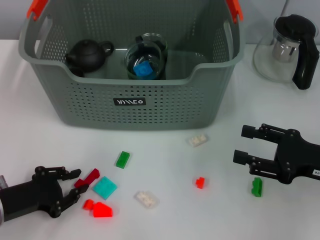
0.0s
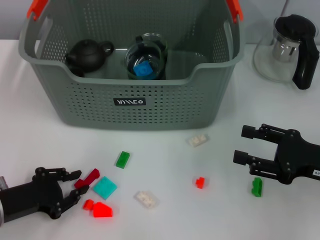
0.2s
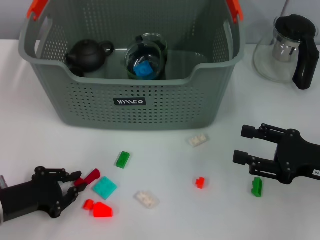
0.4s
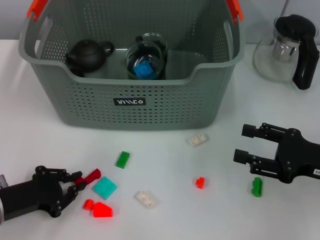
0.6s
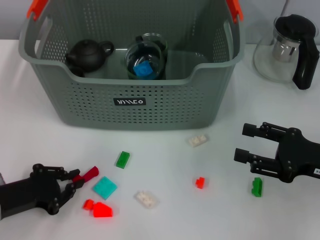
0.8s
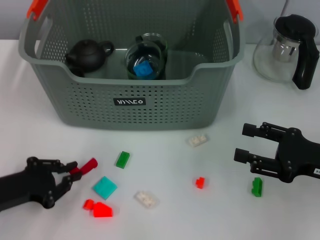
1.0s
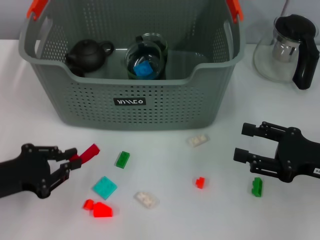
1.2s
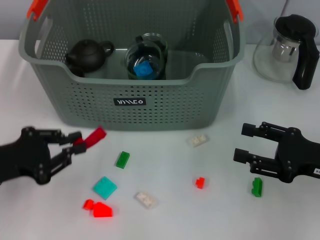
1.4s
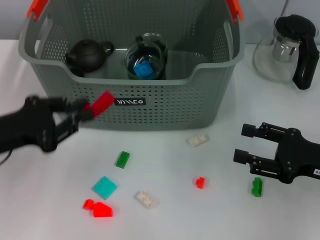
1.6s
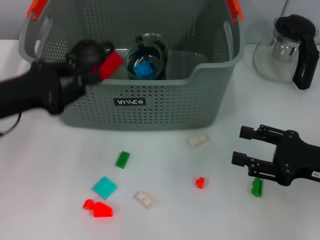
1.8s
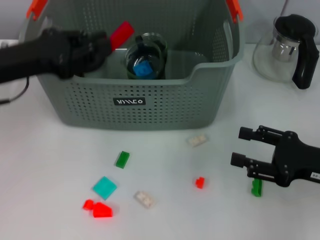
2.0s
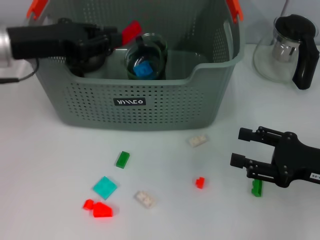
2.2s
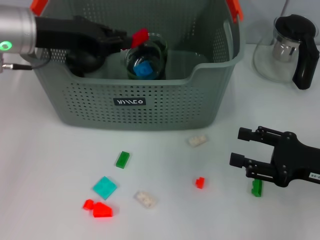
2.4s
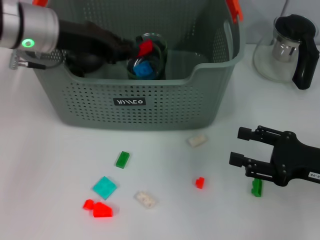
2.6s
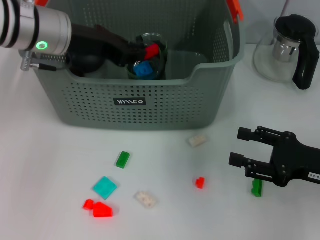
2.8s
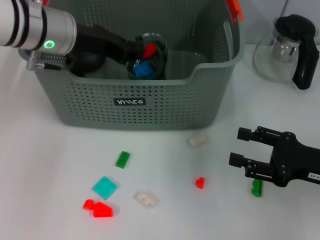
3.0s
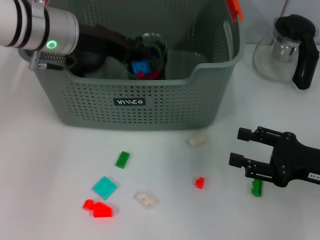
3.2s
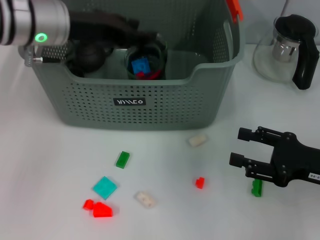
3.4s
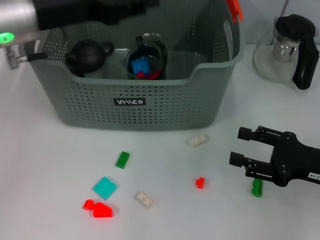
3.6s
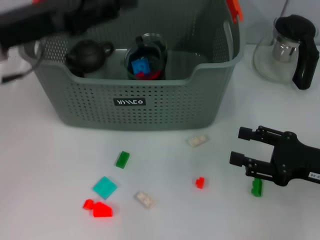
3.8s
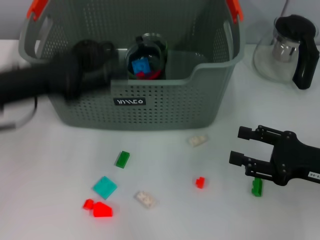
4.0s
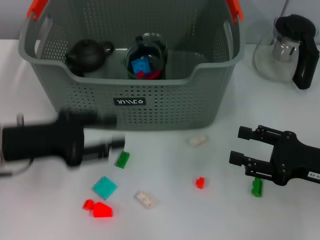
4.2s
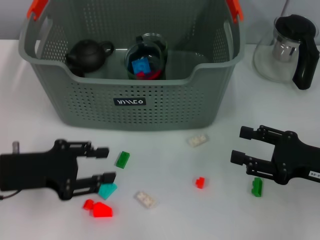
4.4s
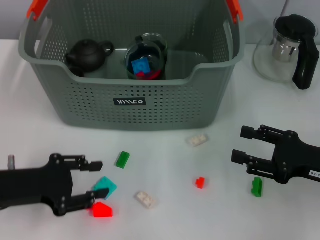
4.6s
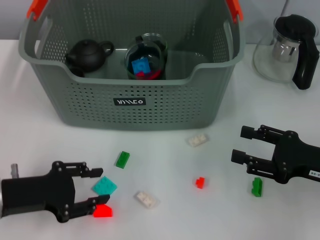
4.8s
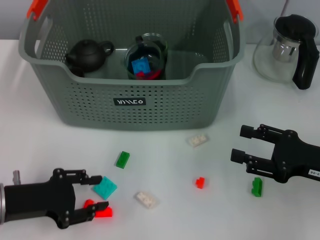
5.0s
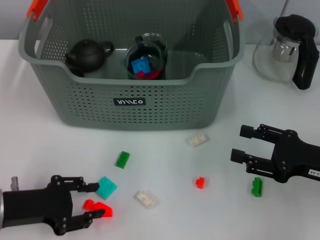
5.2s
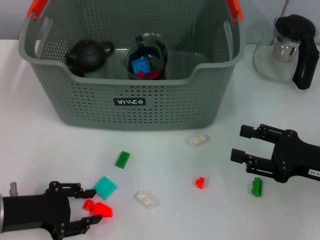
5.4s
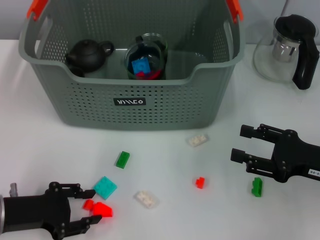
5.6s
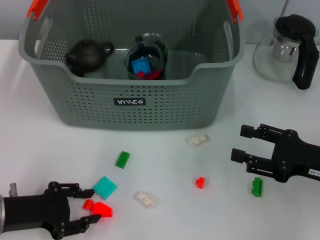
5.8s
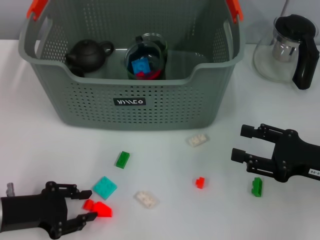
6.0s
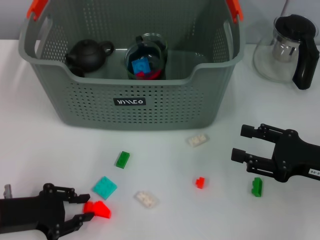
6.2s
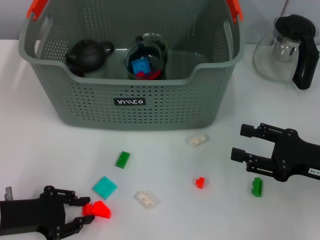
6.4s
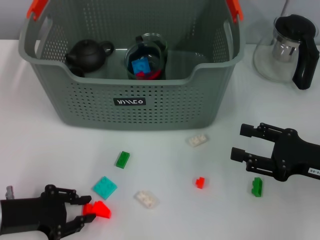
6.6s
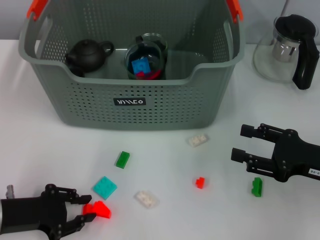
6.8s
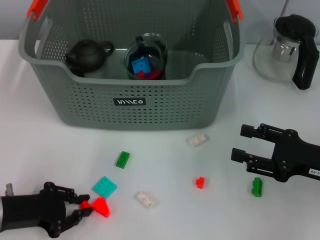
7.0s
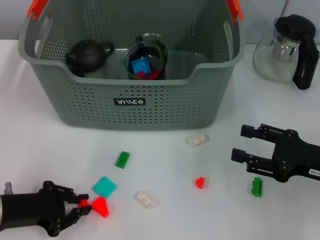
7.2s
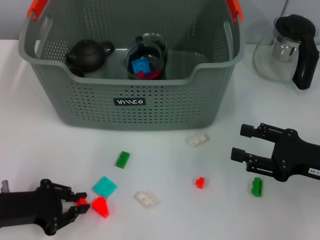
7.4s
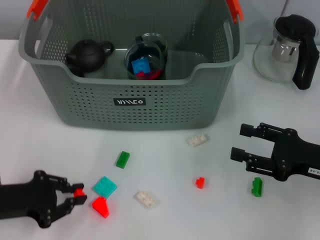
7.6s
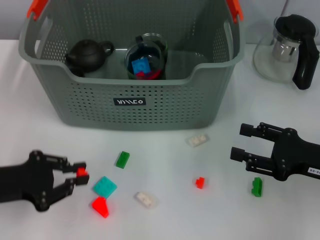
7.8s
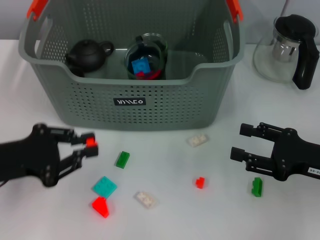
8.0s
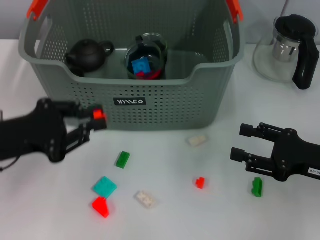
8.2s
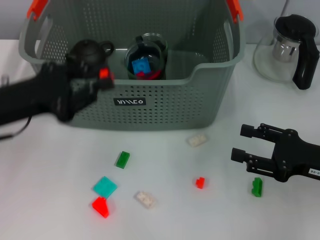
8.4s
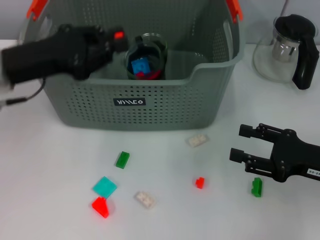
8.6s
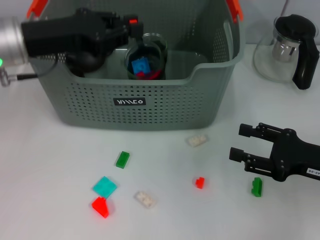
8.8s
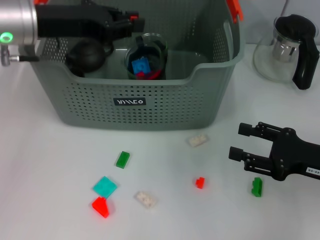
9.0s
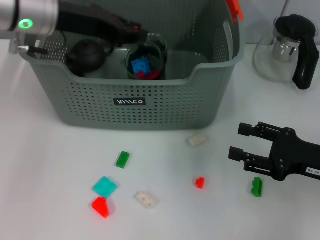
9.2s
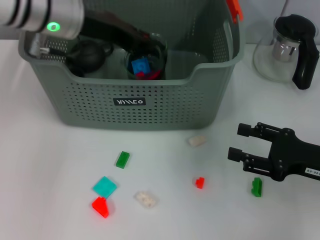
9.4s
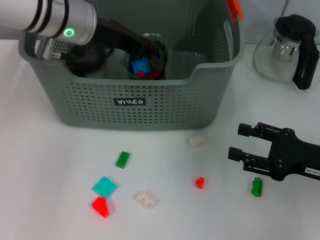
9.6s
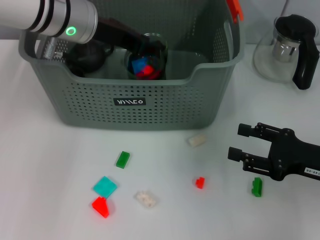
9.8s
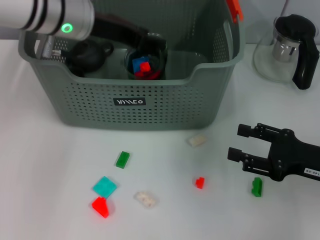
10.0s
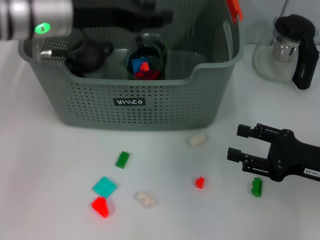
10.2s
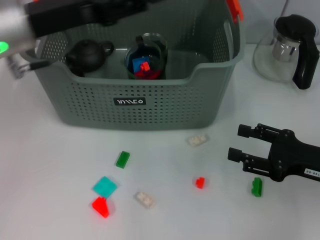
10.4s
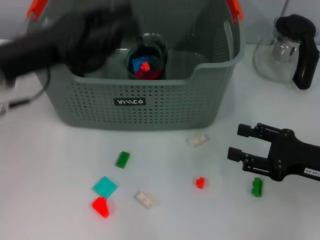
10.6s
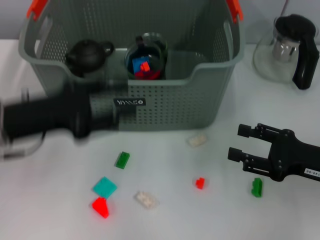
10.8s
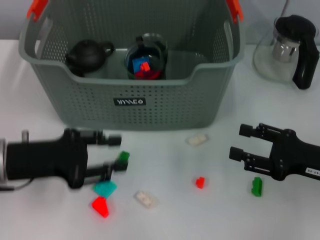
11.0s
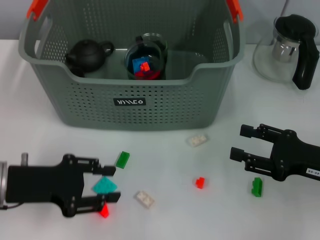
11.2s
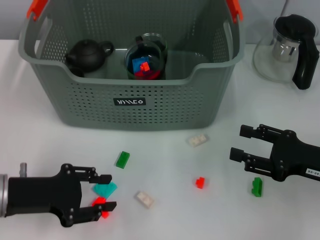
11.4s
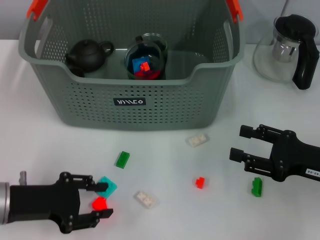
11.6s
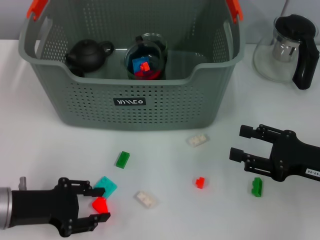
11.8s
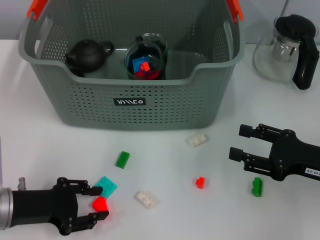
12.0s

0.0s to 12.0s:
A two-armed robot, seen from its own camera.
Task of the whole recording: pick up the teacup on the table and place it into the storage bin, pick up the block on the table and place it into the storage bin.
Step, 0.6s to 3.4s: Place the red block in the storage box with left gripper.
Step, 3.6s to 7.2s: Grasp the orange block with left gripper.
Step, 7.4s to 10.0s: Place the orange block in the storage box with left gripper.
0.0s to 1.6s: The left gripper heads upward, covering some 10 cm, and closes.
1.6s to 3.0s: The left gripper goes some 20 cm forward, to the right and upward.
3.0s to 4.4s: The left gripper is displaced backward, downward and to the left by some 20 cm, and opens.
4.4s to 6.0s: The left gripper goes approximately 5 cm downward.
6.0s to 7.6s: The left gripper closes up.
7.6s to 9.0s: The left gripper is displaced upward, forward and to the right by roughly 25 cm.
9.0s to 10.4s: The left gripper opens.
10.4s to 12.0s: The left gripper moves downward and backward, about 20 cm.

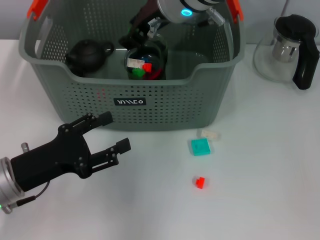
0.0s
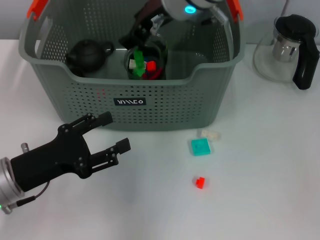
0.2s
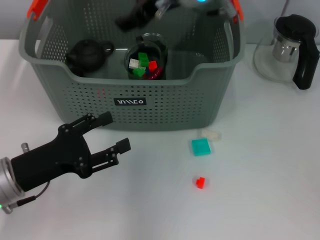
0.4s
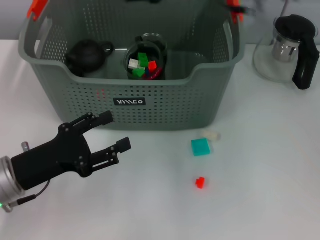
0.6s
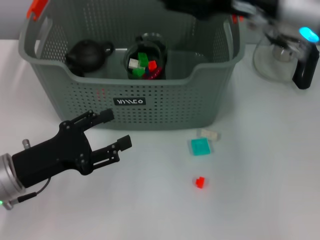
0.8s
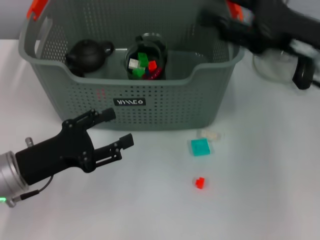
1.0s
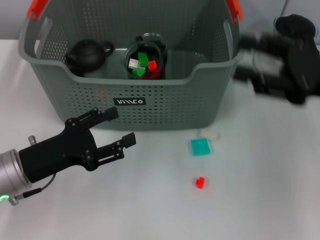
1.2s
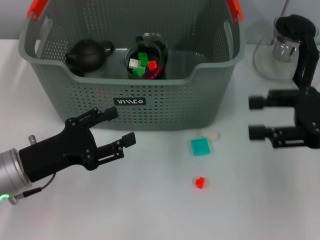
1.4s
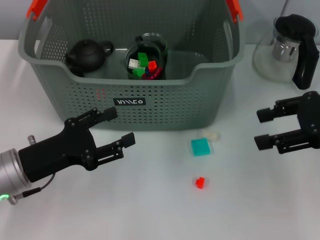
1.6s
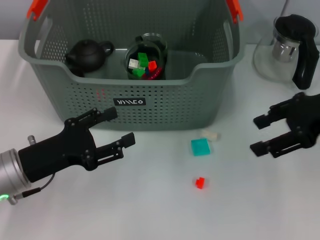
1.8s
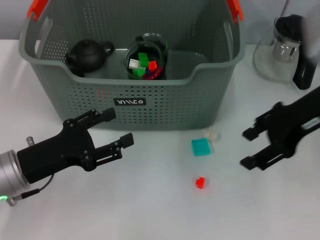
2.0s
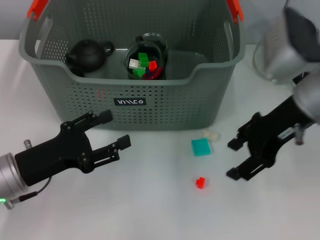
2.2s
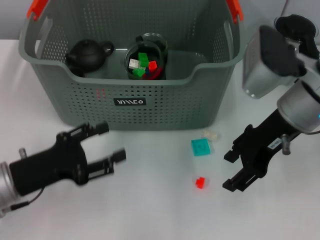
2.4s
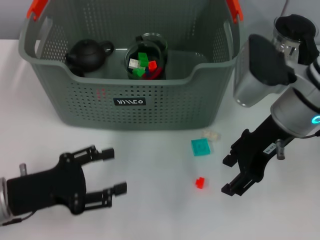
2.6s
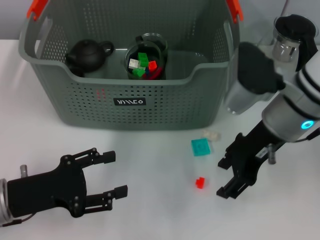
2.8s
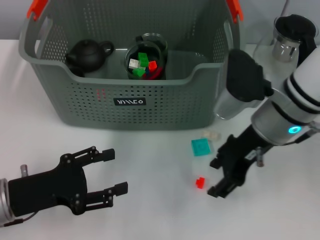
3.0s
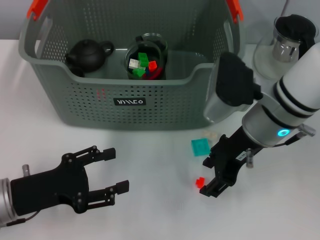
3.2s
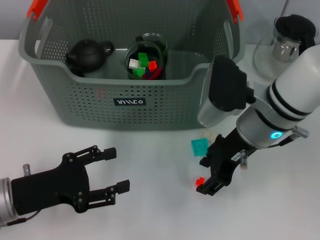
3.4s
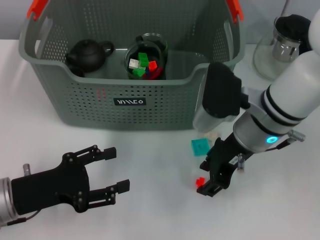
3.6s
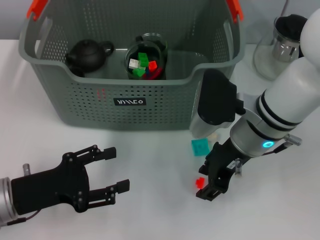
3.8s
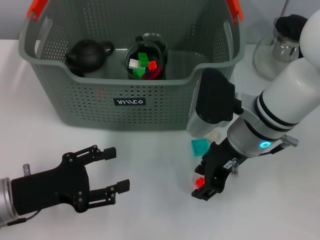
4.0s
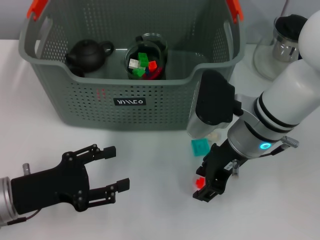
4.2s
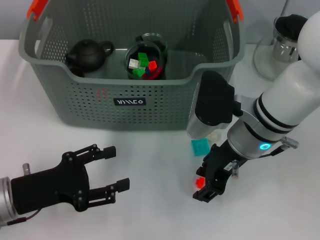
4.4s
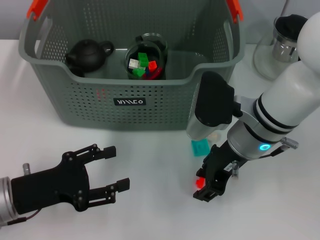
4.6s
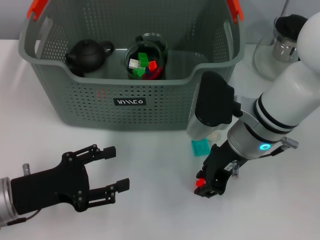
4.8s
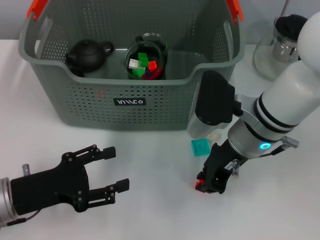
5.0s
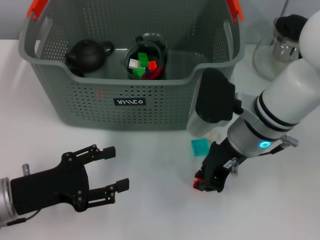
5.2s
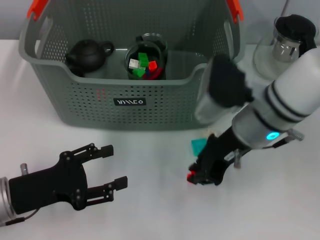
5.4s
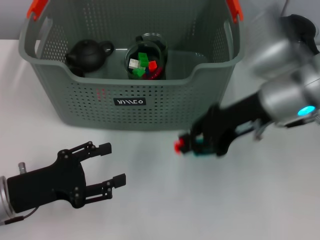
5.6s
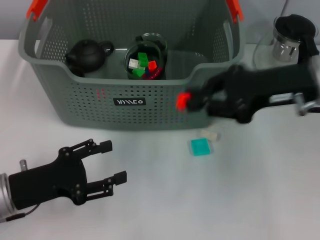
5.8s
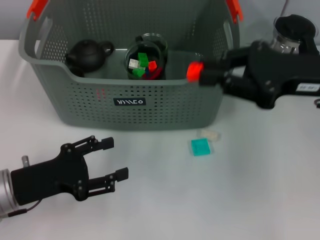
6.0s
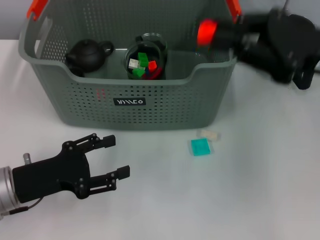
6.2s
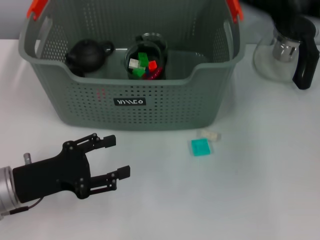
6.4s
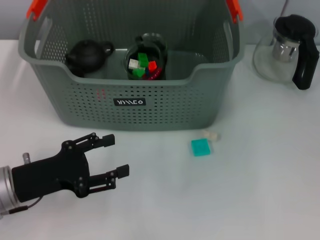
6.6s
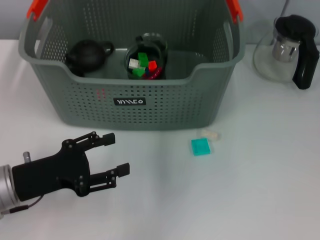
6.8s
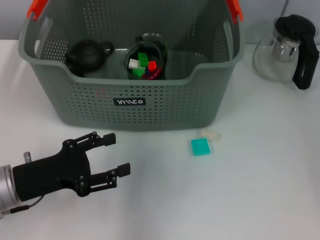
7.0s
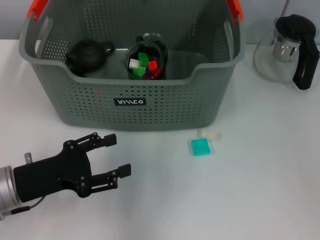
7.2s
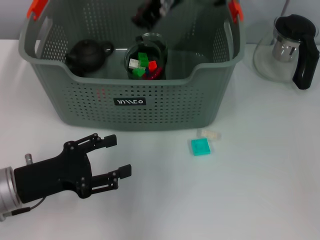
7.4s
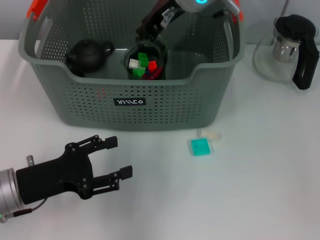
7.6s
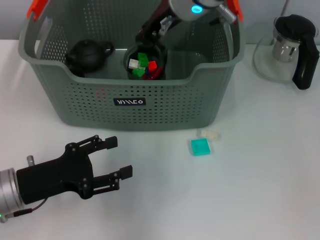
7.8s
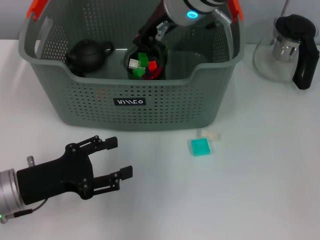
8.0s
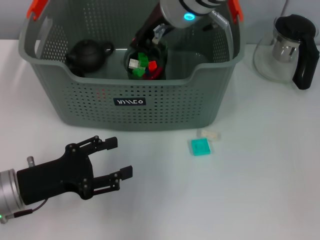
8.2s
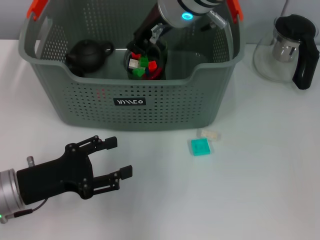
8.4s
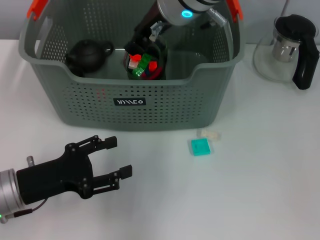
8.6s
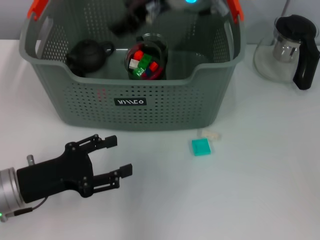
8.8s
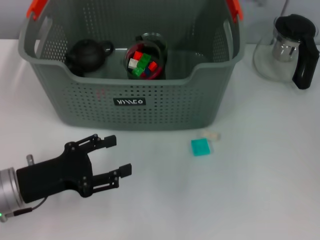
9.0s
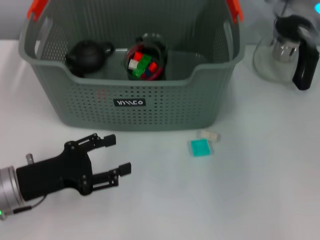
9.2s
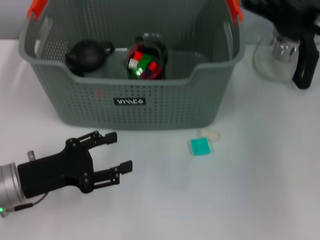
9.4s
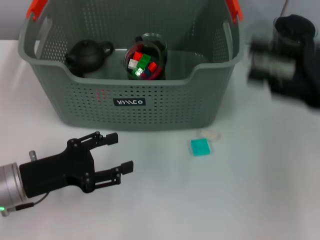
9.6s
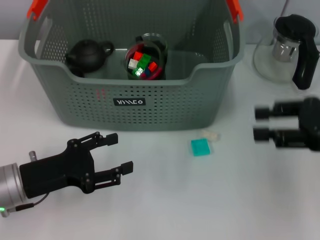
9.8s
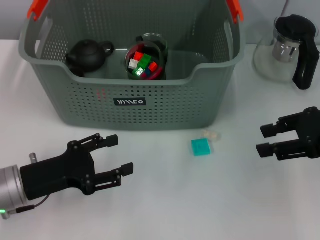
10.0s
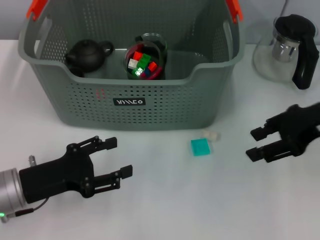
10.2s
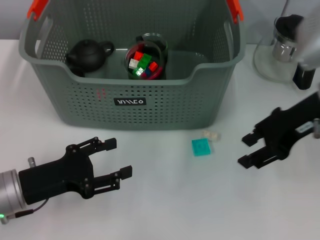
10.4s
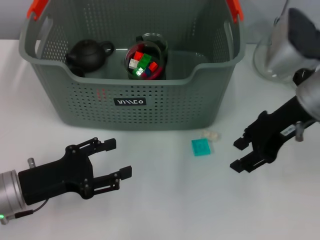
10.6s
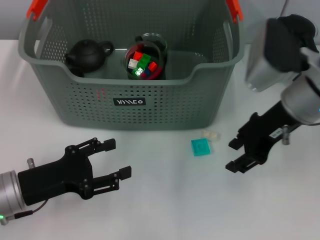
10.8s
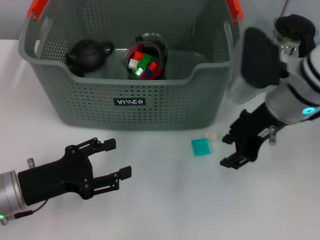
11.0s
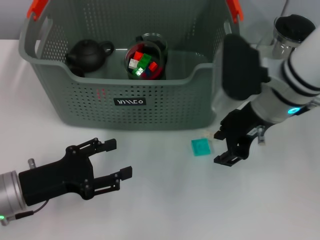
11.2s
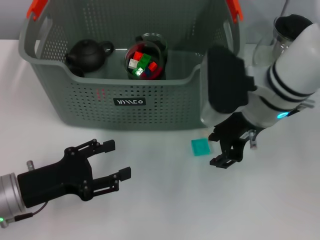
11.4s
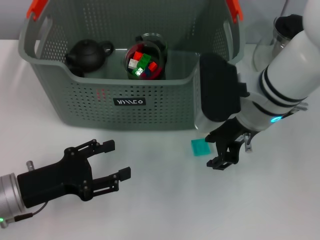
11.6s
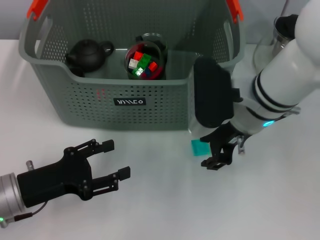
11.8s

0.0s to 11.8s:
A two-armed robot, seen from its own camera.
Task of the whole recording: pick up the teacup on the table and place it into the storage bin, pick up the block on the table and place it into the storage bin.
Step, 1.0s to 5.0s: Grasp the orange block with right gripper.
Step, 5.2s to 8.8s: Place the orange block in the storage box with right gripper.
0.0s to 1.4s: The right gripper goes about 30 cm to the right and backward, and opens.
1.4s to 3.0s: The right gripper shifts approximately 15 cm to the left.
3.0s to 4.4s: There are only small adjustments of the grippers.
4.4s to 6.0s: The right gripper is displaced to the right and upward by some 15 cm, and closes its fingers.
6.0s to 7.4s: The right gripper travels to the left, forward and upward by some 25 cm.
7.4s to 8.8s: The right gripper opens its fingers.
8.8s to 10.4s: The right gripper heads to the right, covering roughly 20 cm.
10.4s to 11.8s: The right gripper is displaced to the left by about 10 cm.
